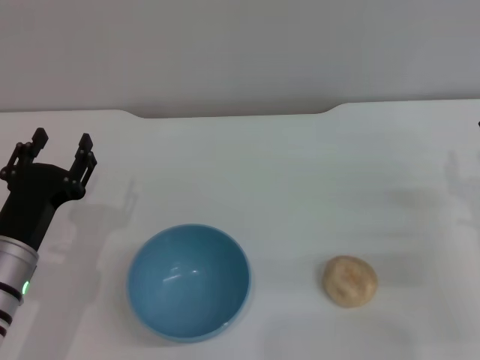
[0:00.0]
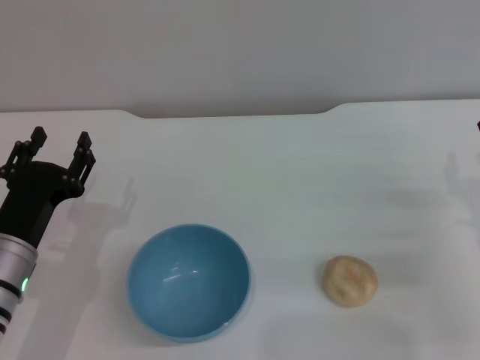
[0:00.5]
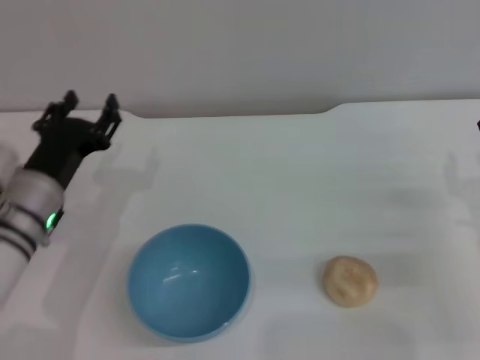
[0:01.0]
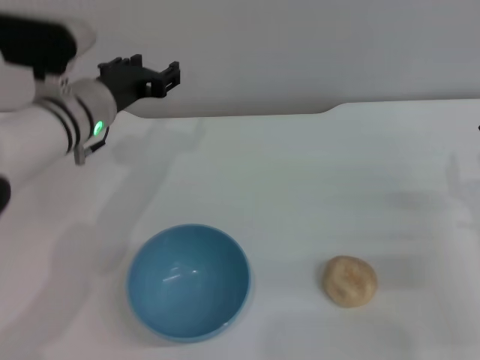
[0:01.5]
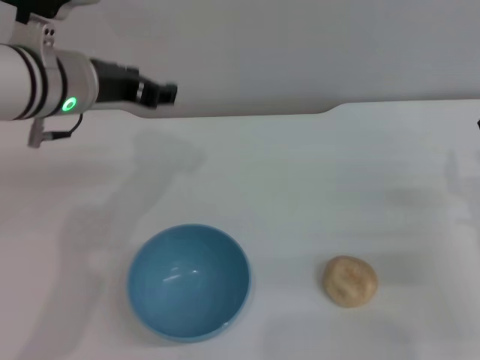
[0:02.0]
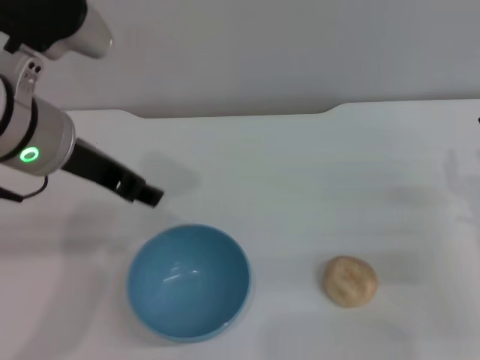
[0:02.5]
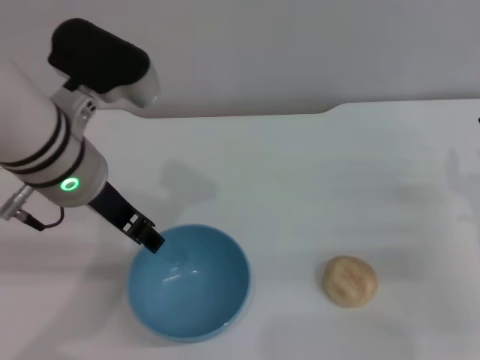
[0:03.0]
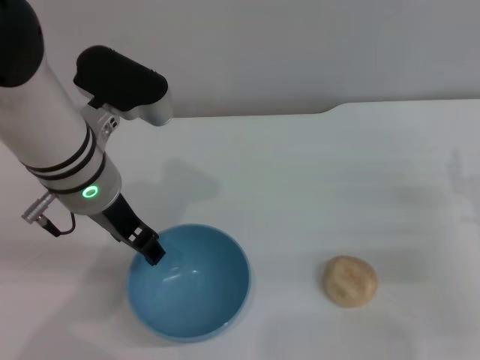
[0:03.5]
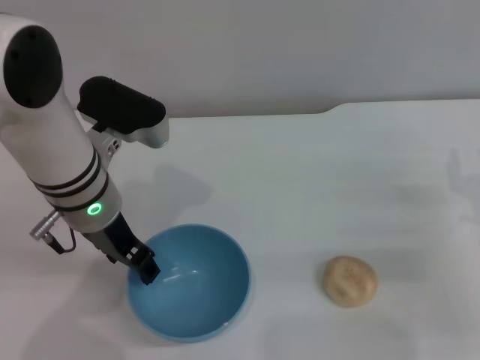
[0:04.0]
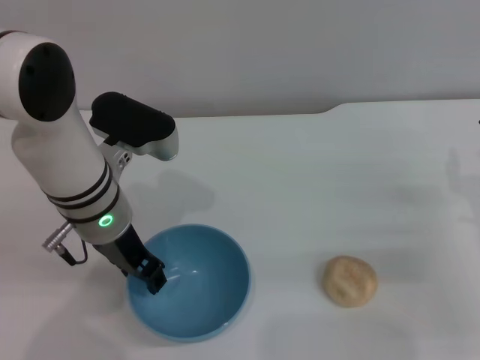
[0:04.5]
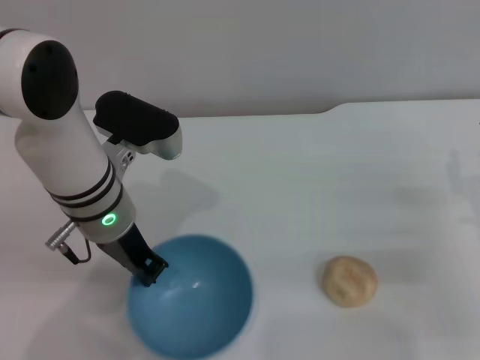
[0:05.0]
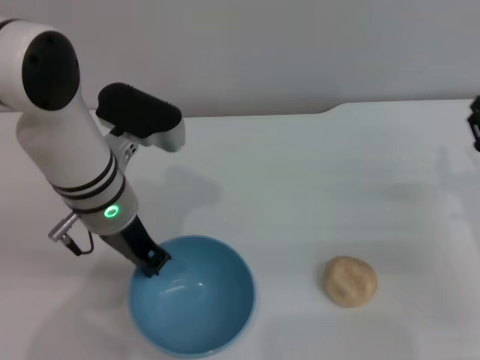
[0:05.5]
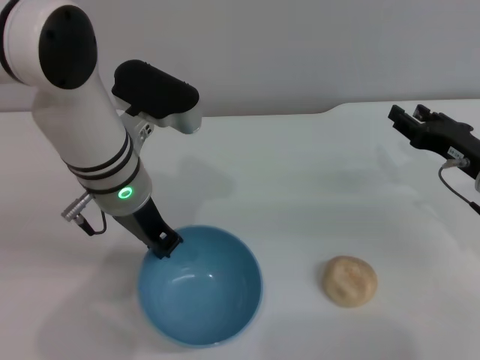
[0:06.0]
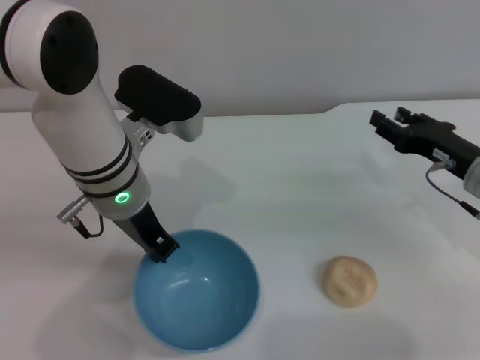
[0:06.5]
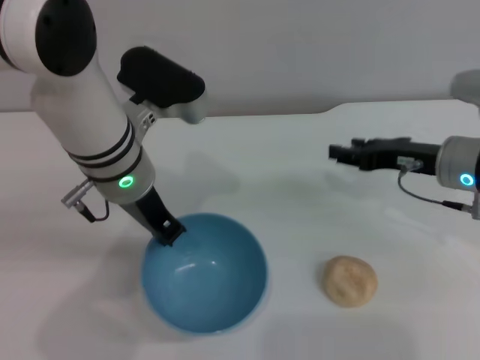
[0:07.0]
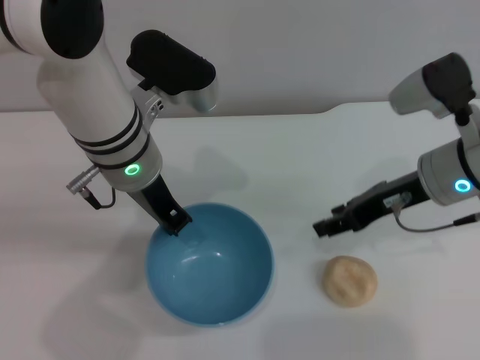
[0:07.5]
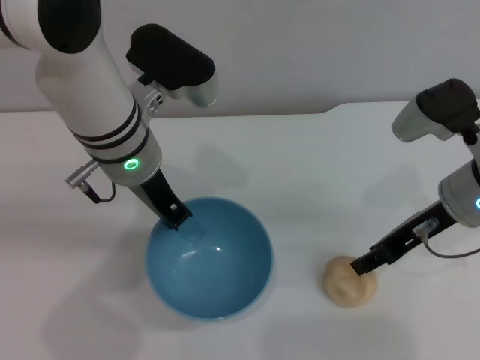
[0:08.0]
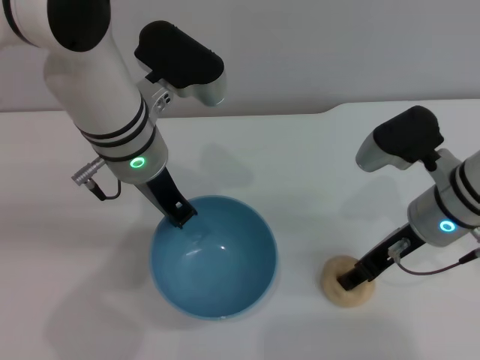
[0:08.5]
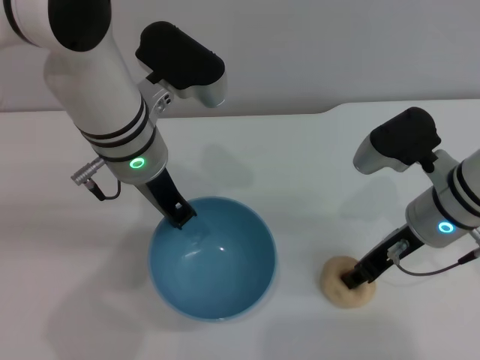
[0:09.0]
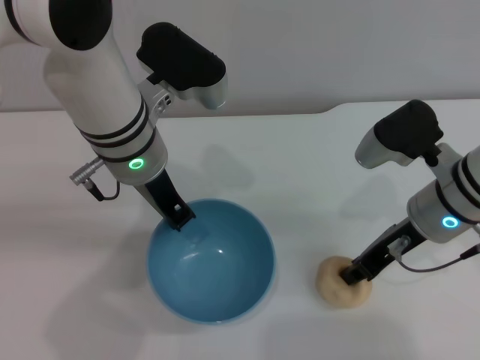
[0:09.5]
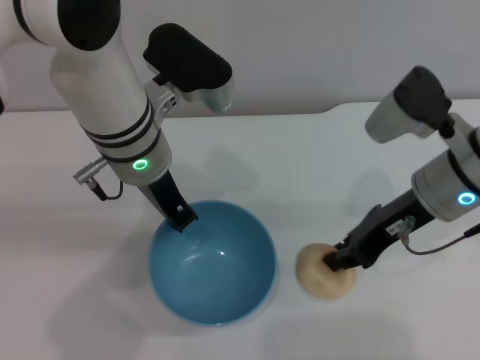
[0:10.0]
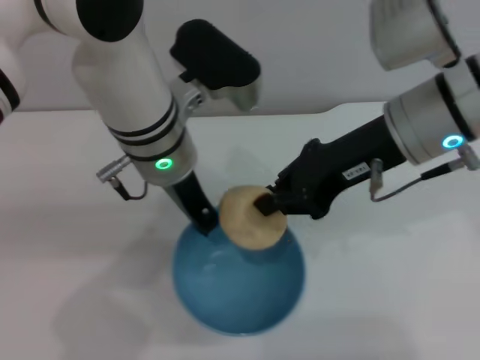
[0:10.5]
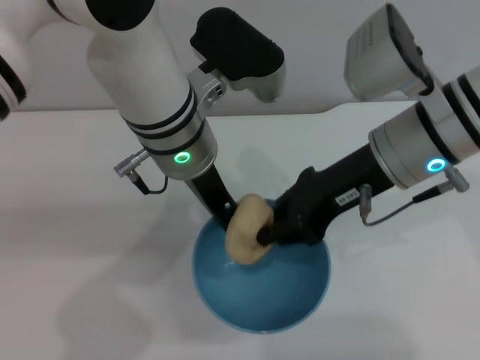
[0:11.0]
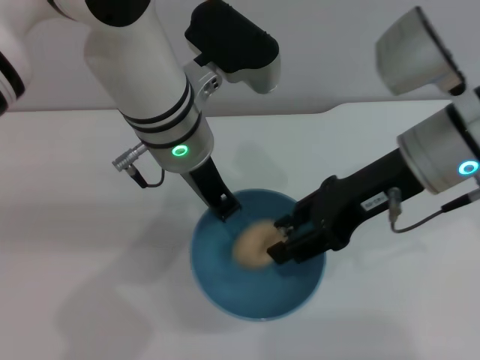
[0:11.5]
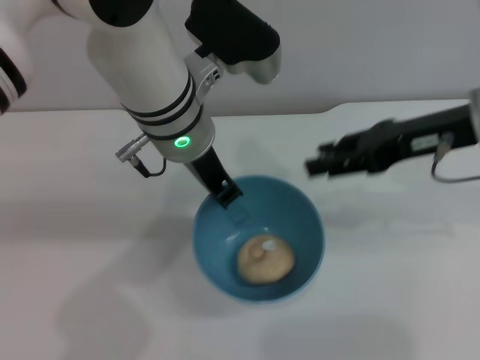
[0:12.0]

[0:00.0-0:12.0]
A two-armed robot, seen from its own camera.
Task of the whole recording: put the egg yolk pastry into the blue bowl and pour it out repeatedly.
Step, 0:00.0 to 0:07.0: Pick up the bowl with the left gripper.
Step, 0:07.5 to 0:09.5: Pick up the egg yolk pastry with the right gripper.
Step, 0:10.0 to 0:12.0: Place the egg yolk pastry into the bowl.
0:00.0 to 0:02.0: The left gripper is displaced upward and forward by approximately 20 cm.
0:02.0 to 0:04.0: The left gripper heads downward, covering roughly 5 cm.
0:04.0 to 0:06.0: The right gripper goes some 5 cm forward; the left gripper closes.
0:06.0 to 0:08.0: The right gripper shifts about 10 cm upward and to the left.
0:08.0 to 0:10.0: The right gripper closes its fingers.
0:10.0 to 0:12.0: The right gripper shifts about 10 cm upward and to the right, and opens.

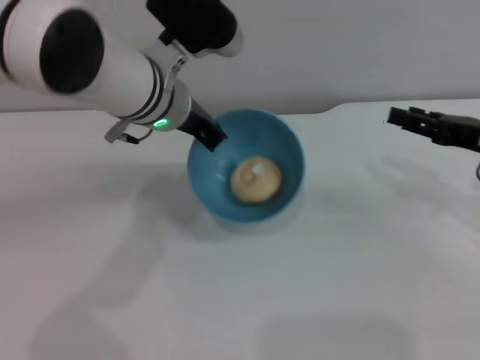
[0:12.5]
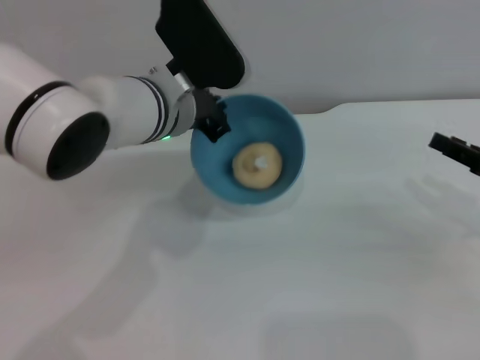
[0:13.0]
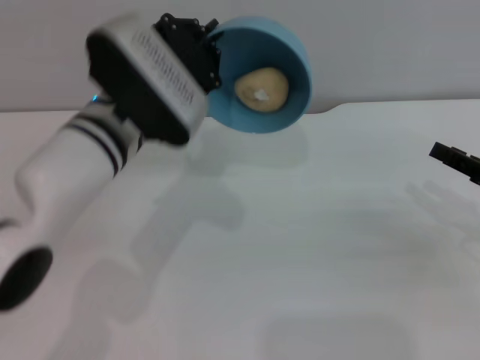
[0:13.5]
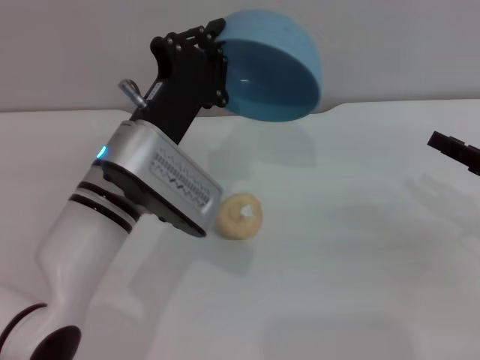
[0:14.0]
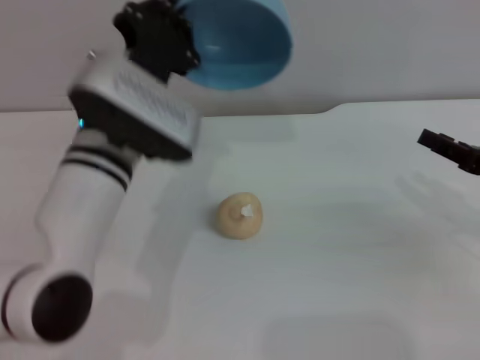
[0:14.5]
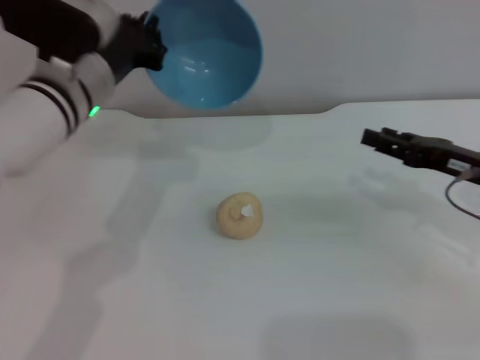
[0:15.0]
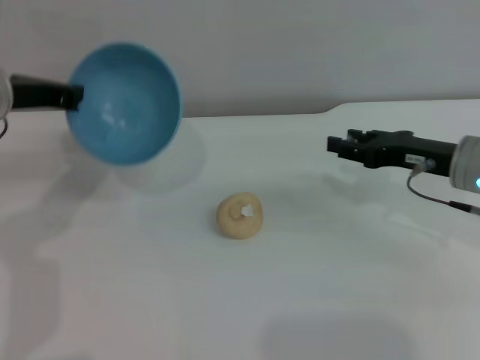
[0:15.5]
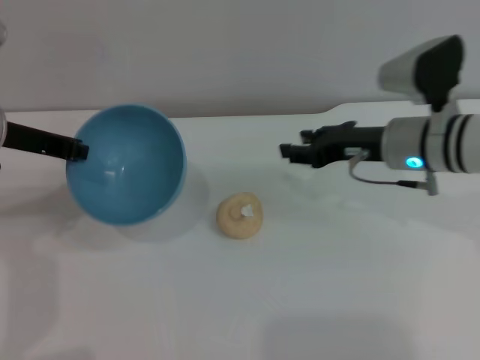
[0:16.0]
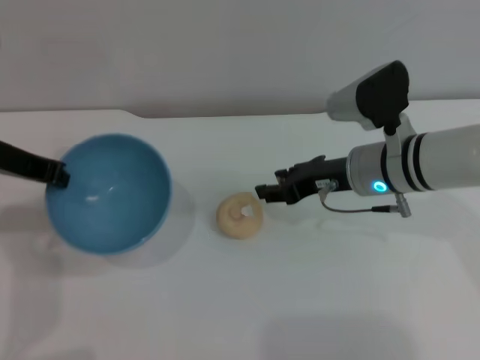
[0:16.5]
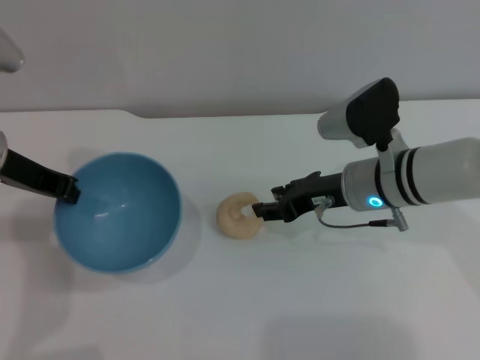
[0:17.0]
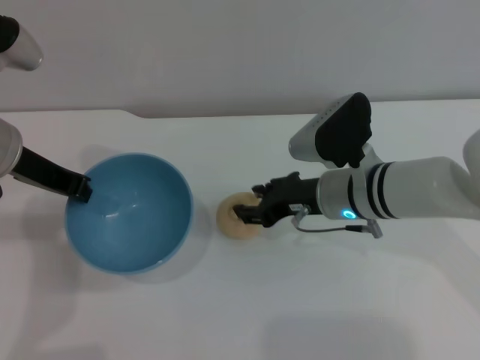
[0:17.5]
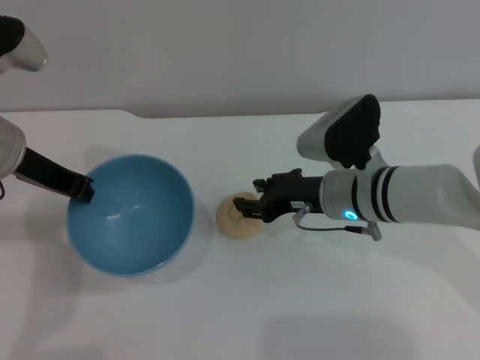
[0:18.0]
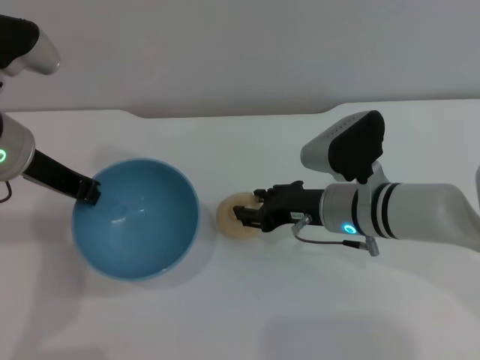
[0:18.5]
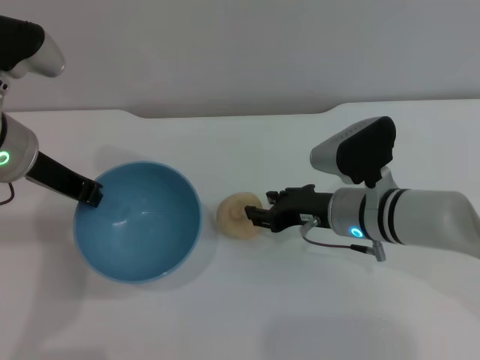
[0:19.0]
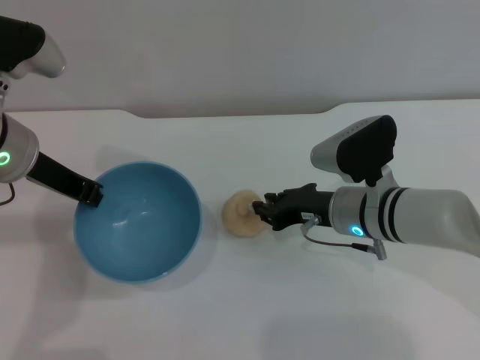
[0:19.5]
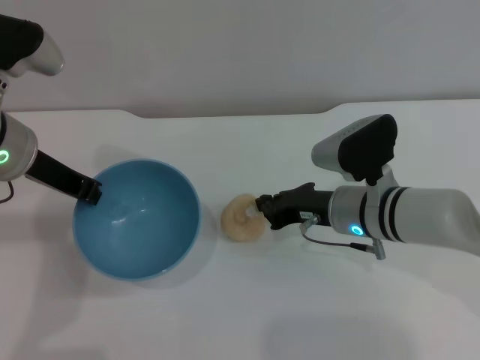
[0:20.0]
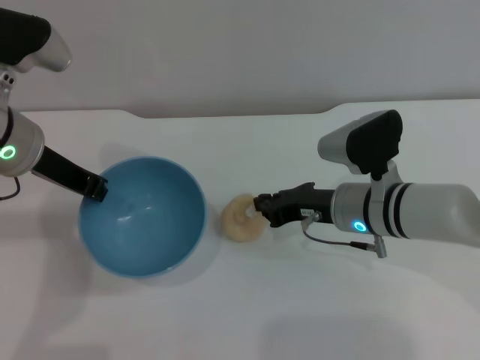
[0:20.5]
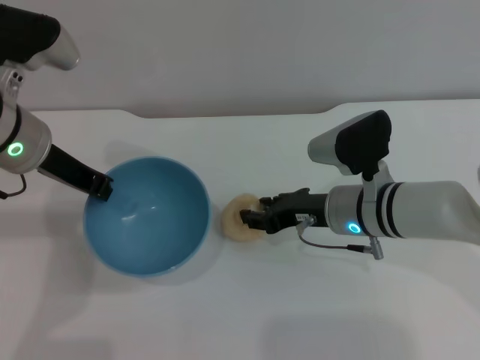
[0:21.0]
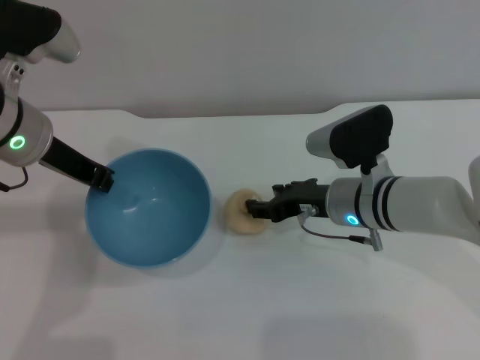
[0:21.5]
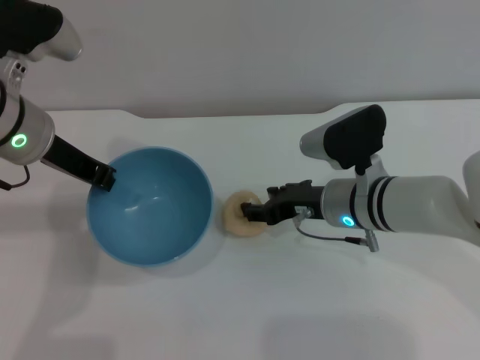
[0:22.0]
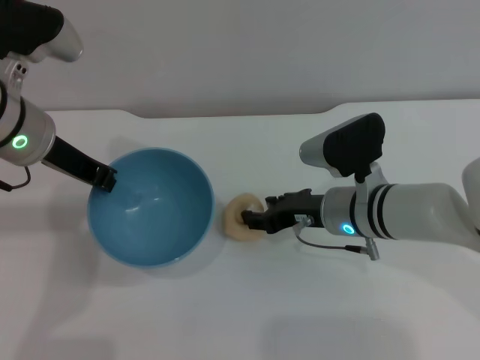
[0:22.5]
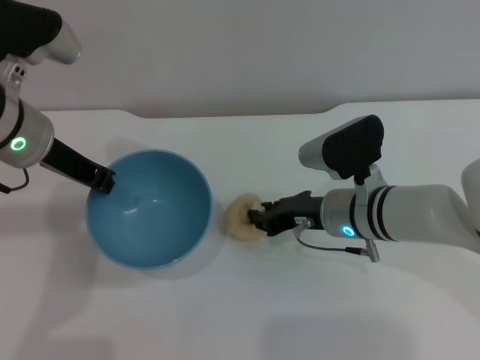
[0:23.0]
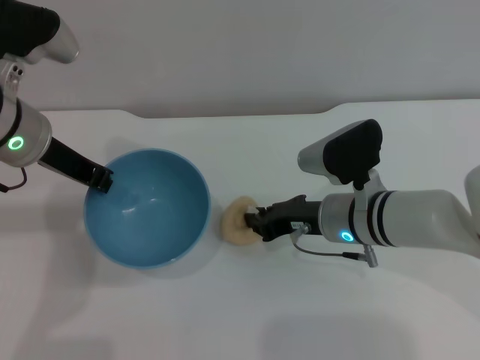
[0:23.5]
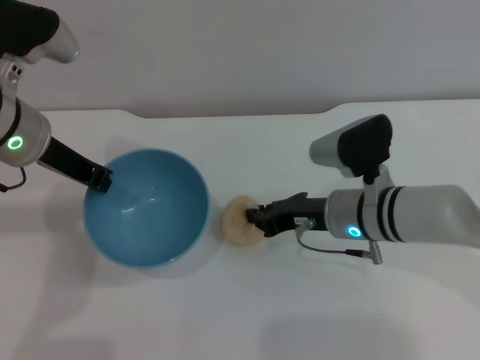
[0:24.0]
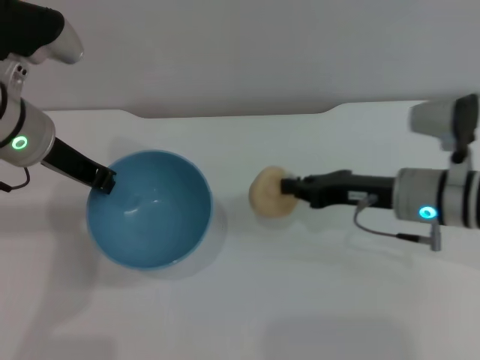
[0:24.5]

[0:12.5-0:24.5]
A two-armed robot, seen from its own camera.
Task of the whole recording: put the egg yolk pastry into the blue bowl and pour it out repeatedly.
Step, 0:12.5 to 0:14.0: Pour the egg yolk pastry out of bowl.
Step, 0:14.5 to 0:24.0: Pick up the egg yolk pastry with the right gripper.
0:12.5 to 0:14.5: The left gripper travels backward by roughly 5 cm, while the right gripper ends up some 5 cm from where it was.
0:14.5 to 0:16.5: The right gripper goes about 20 cm to the left and forward; the left gripper heads to the left, covering roughly 15 cm.
0:16.5 to 0:18.5: The right gripper changes place by roughly 5 cm.
0:18.5 to 0:20.5: The right gripper closes.
0:20.5 to 0:22.5: The right gripper opens up.
0:22.5 to 0:24.5: The right gripper is displaced to the right by roughly 5 cm, and closes up.

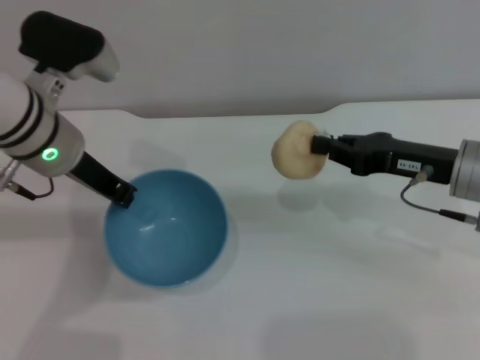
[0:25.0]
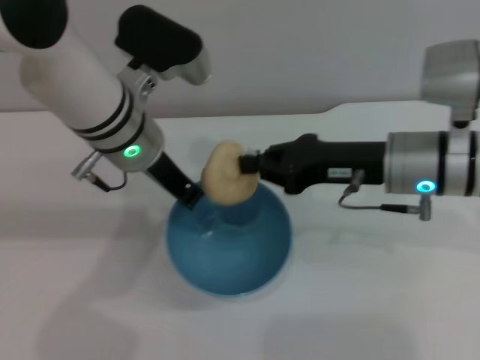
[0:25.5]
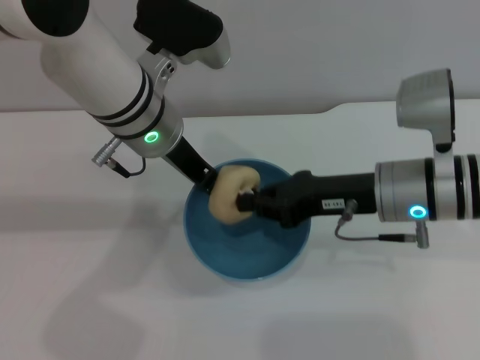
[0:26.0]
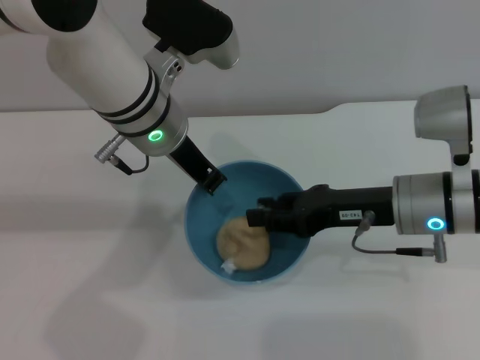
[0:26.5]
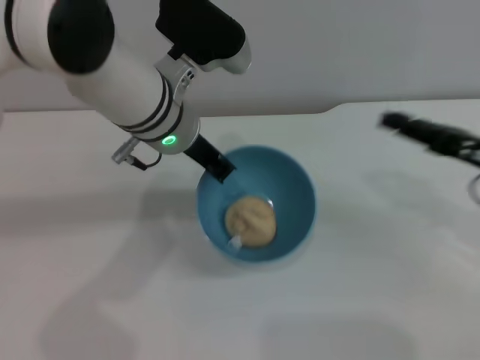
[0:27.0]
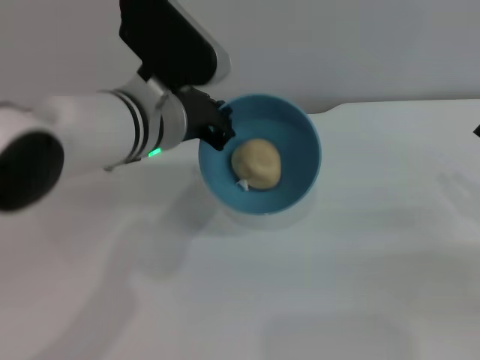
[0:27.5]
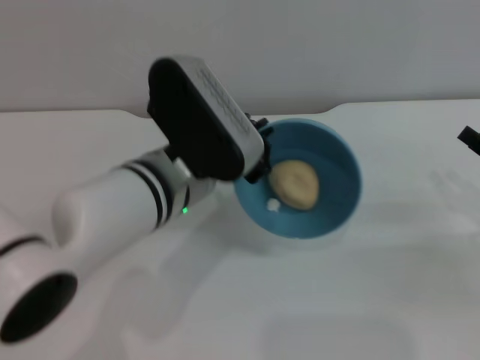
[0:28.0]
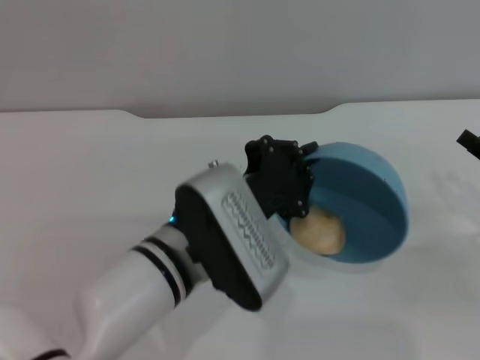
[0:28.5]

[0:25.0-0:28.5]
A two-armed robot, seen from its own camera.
Task of the whole recording: put the egg yolk pastry into the blue bowl and pour it out repeatedly.
Step, 0:25.0 to 0:26.5: Place the egg yolk pastry into the bowl.
0:25.0 to 0:27.0: The left gripper moves to the right, roughly 10 cm. Meanwhile the right gripper moves to the right, about 5 cm, and opens up.
0:27.0 to 0:28.5: The right gripper heads downward, covering about 5 cm. Meanwhile the left gripper is displaced backward and downward by some 15 cm.
